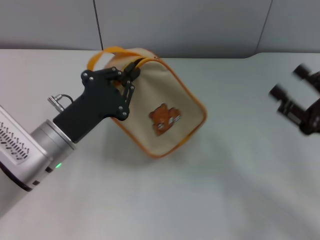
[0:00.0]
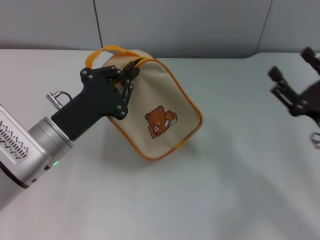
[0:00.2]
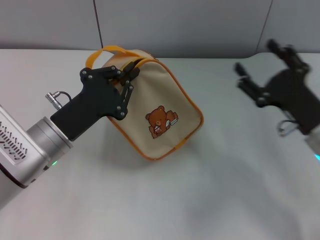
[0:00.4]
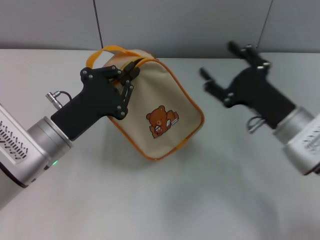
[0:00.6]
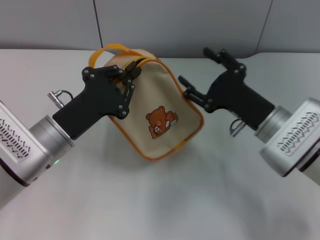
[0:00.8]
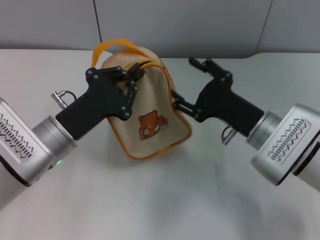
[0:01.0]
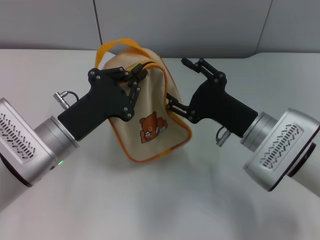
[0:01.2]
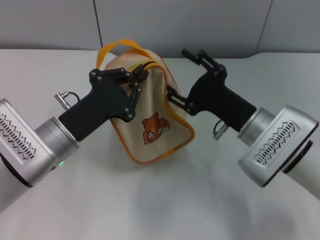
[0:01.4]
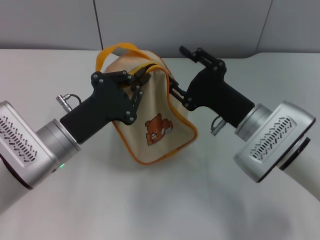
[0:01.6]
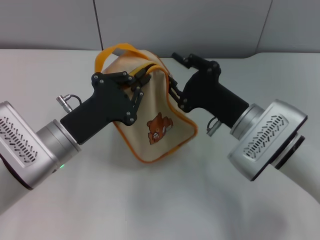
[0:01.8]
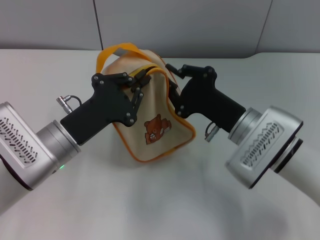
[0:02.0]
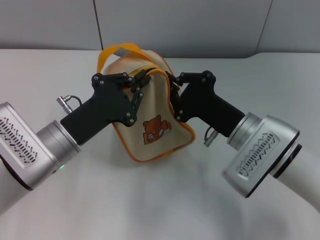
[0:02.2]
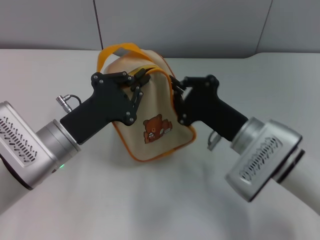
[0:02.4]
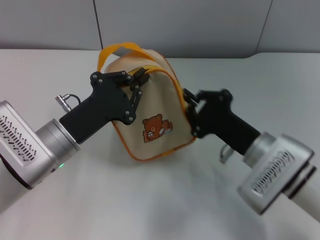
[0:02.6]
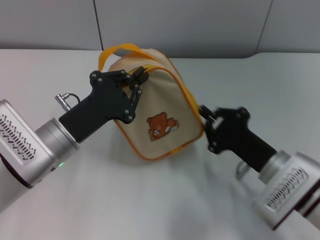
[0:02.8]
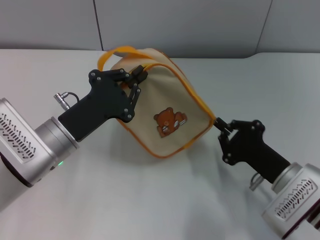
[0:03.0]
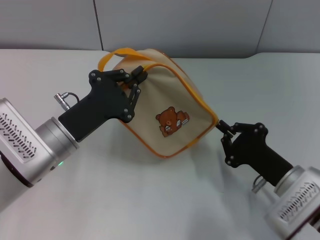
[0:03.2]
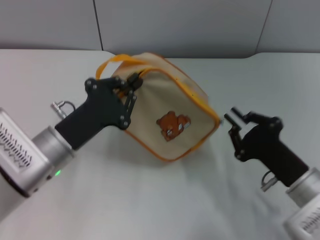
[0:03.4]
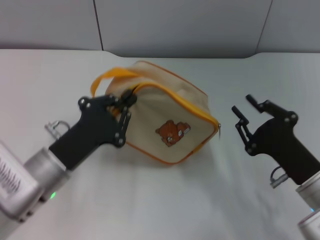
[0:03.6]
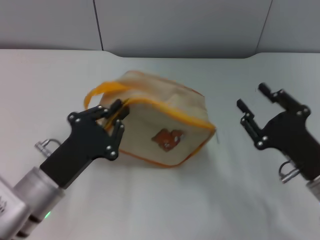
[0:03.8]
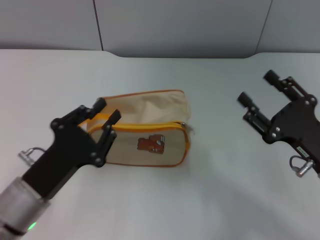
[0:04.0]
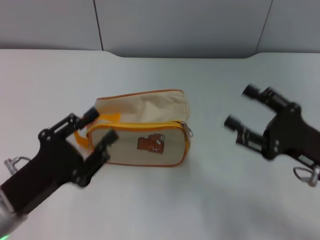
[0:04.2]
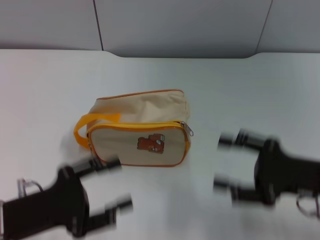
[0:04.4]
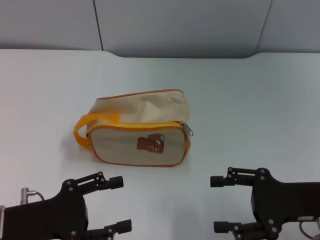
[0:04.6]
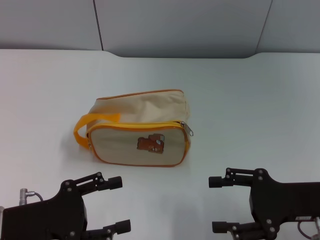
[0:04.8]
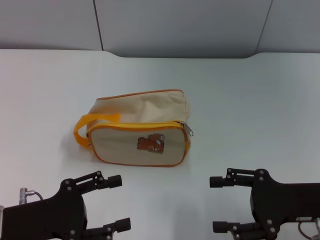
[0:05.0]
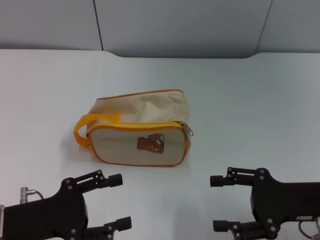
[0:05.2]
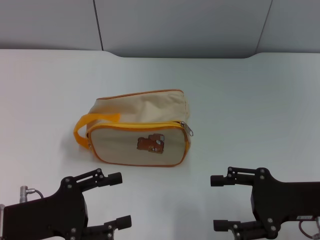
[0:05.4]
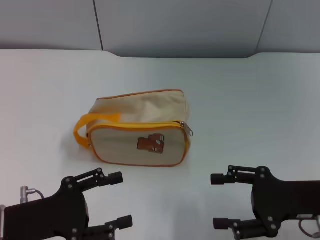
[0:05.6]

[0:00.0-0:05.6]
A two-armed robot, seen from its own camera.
Step, 0:00.2 to 0:03.4: Unzip the zipper of bag with right gripper.
Step, 0:03.6 to 0:04.0: Place the bag on the table with left gripper.
0:00.0 to 0:01.4: The right gripper shifts approximately 15 cm to the left and forward.
0:01.4 to 0:02.8: The right gripper changes place by approximately 5 cm, and closes up.
0:02.8 to 0:04.2: The left gripper travels backward and to the left by some 10 cm, while the right gripper shifts roughly 10 cm to the right and upward, and opens its fingers.
0:04.2 to 0:05.6: The left gripper opens.

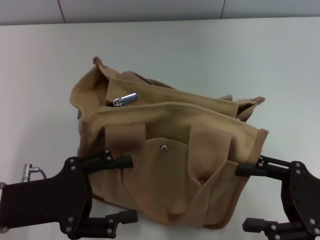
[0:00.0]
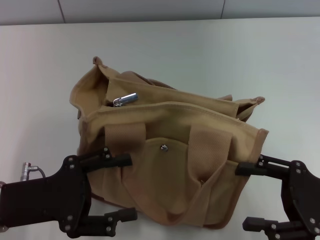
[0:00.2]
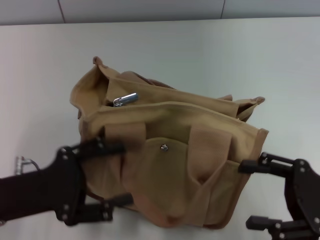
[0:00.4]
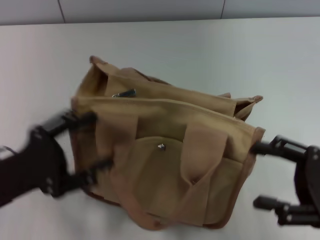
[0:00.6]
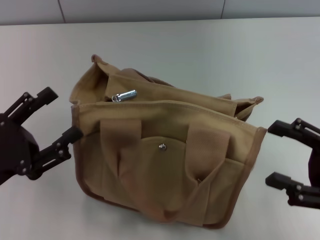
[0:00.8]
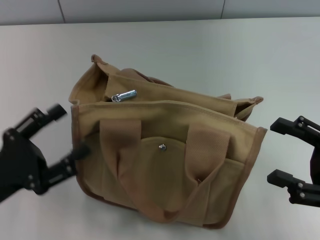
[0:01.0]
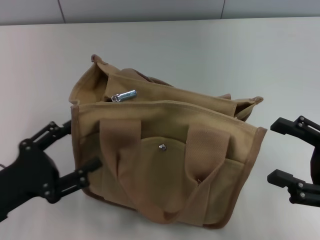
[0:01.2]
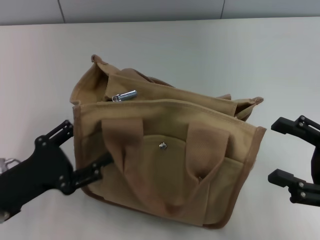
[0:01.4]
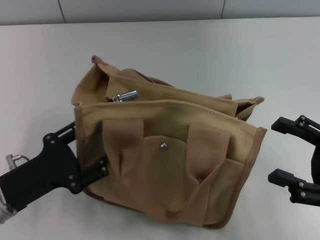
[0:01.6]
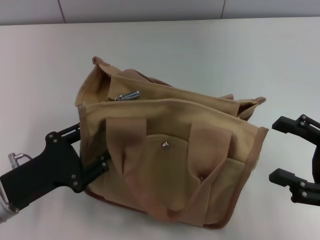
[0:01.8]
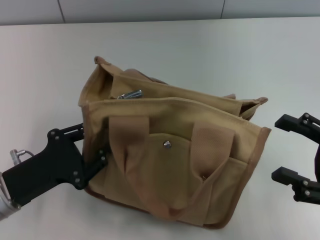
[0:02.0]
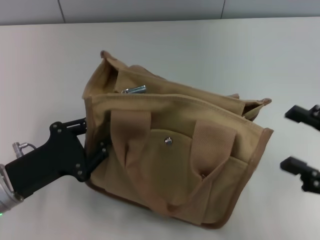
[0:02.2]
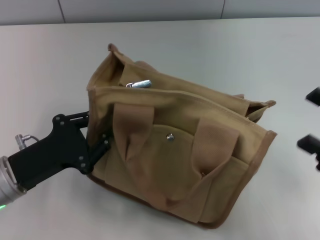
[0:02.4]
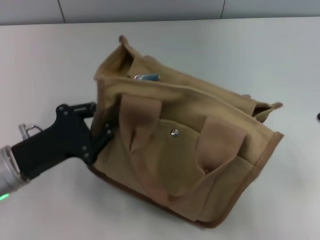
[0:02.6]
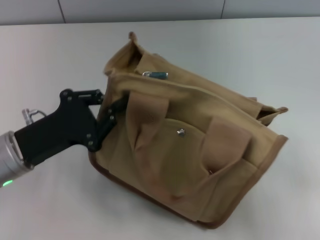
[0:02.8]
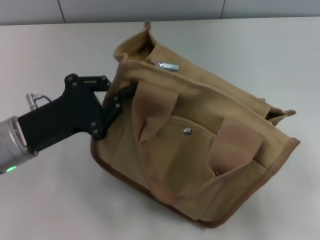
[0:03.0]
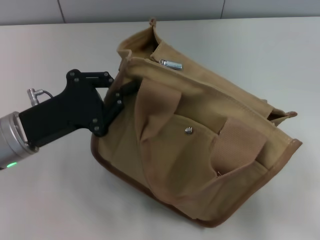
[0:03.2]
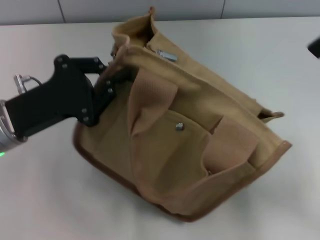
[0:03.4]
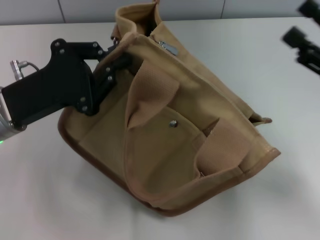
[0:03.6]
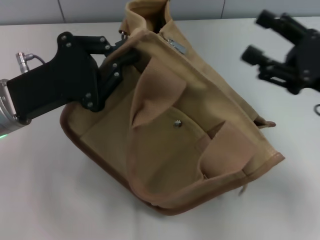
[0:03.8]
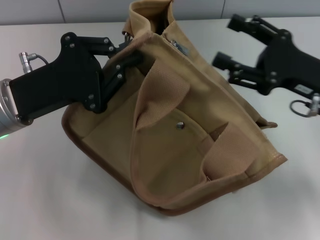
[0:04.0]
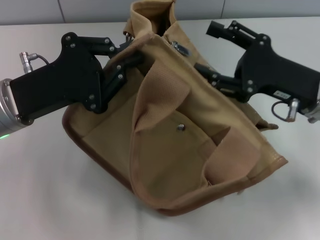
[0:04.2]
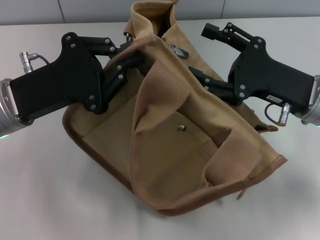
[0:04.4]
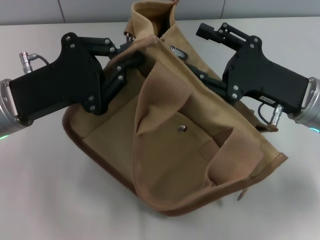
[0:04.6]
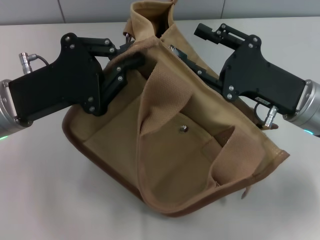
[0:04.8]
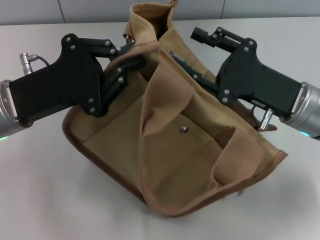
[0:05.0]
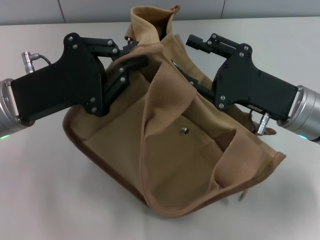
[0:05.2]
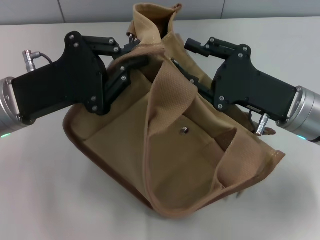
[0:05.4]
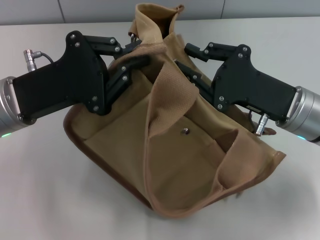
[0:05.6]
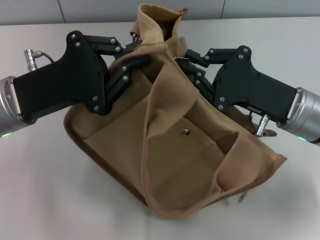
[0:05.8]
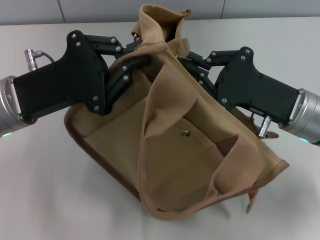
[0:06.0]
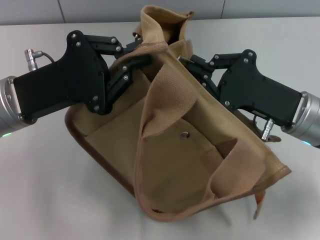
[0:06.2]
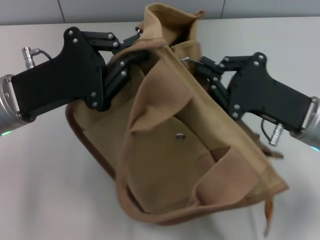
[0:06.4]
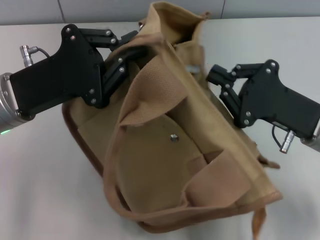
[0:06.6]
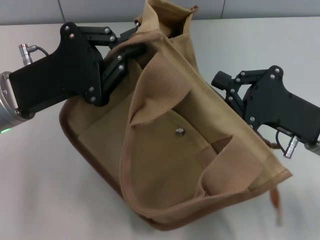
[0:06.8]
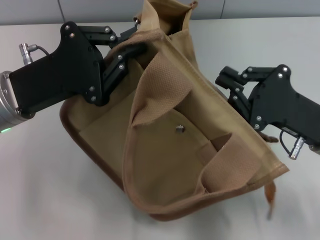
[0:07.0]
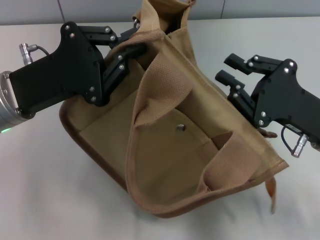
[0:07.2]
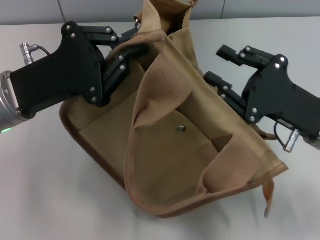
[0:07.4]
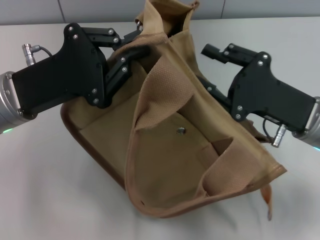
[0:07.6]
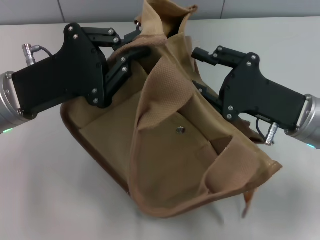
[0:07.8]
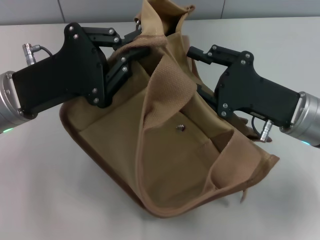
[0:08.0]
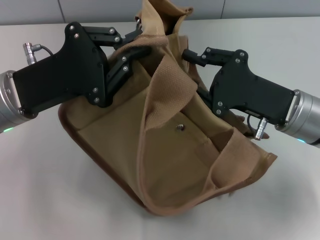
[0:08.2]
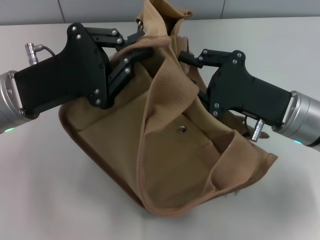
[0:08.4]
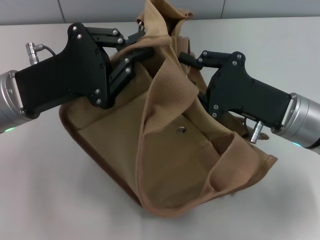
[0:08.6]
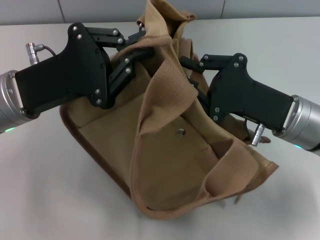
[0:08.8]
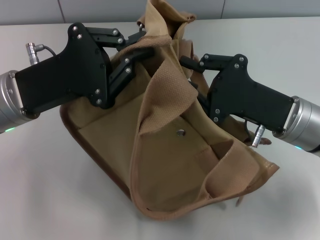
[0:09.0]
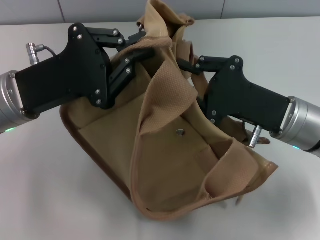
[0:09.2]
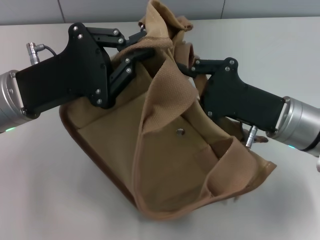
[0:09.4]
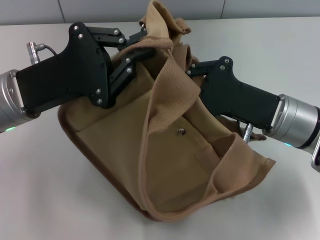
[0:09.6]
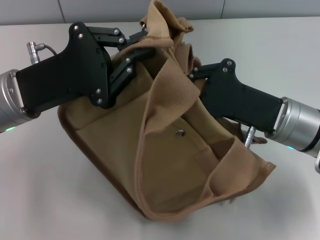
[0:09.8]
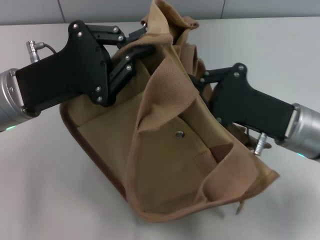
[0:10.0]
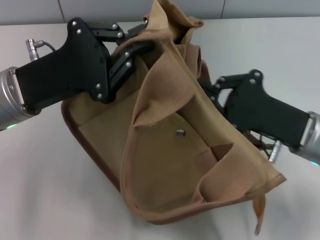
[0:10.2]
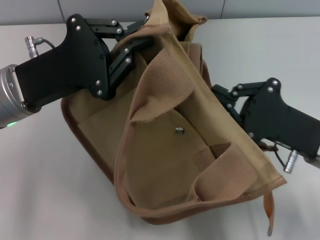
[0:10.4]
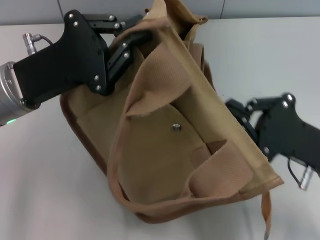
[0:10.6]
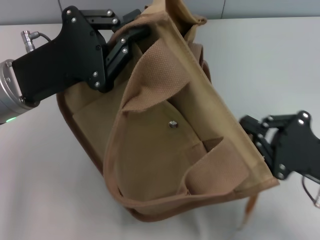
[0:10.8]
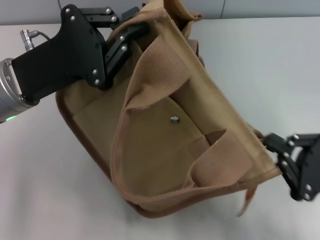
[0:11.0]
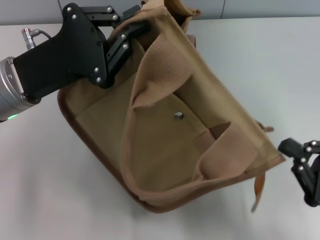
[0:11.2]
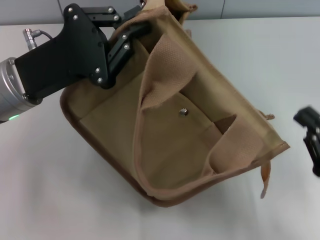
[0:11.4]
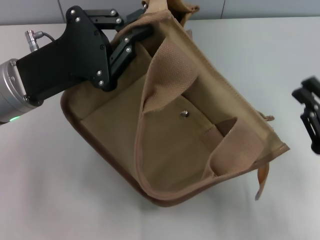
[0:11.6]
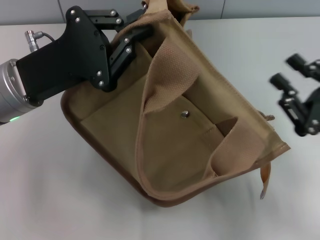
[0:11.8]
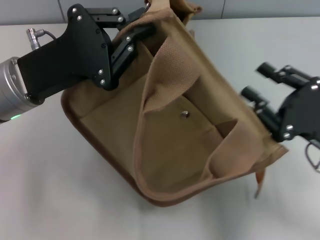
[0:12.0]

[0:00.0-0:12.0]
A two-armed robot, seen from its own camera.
0:01.6 to 0:03.0: The left gripper goes some 5 cm forward, and closes up.
0:03.0 to 0:04.4: The right gripper moves to the left and forward, roughly 15 cm. The left gripper ends up approximately 5 cm from where it was.
0:04.4 to 0:06.0: The right gripper closes up.
0:06.0 to 0:07.6: The right gripper opens.
0:07.6 to 0:09.0: The grippers stay close to where they were, moving slightly.
0:09.0 to 0:10.4: The right gripper ends up some 5 cm from where it was.
0:10.4 to 0:12.0: The right gripper goes backward and returns, about 10 cm each way, and opens up.

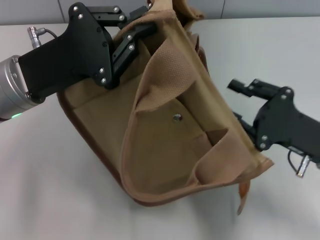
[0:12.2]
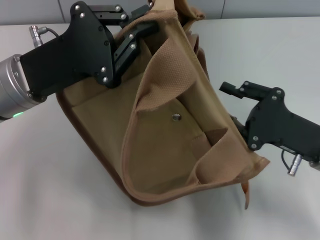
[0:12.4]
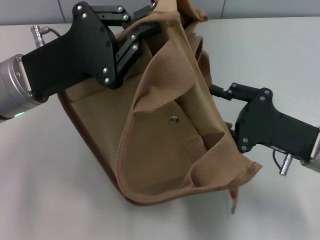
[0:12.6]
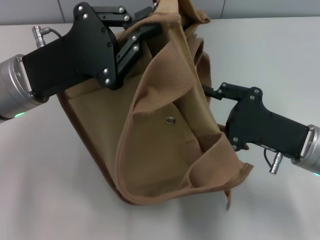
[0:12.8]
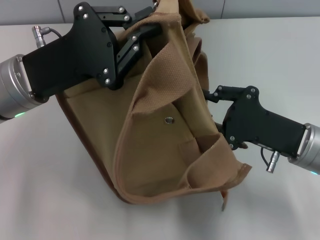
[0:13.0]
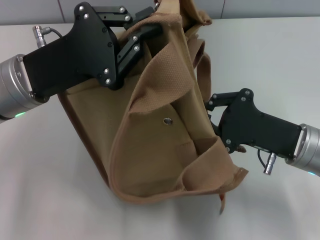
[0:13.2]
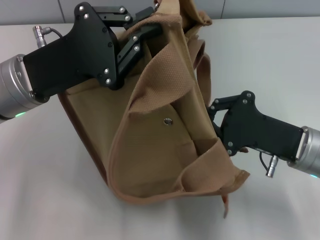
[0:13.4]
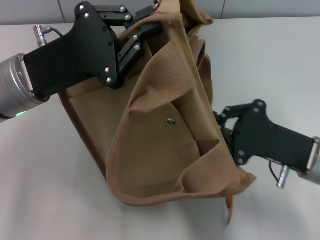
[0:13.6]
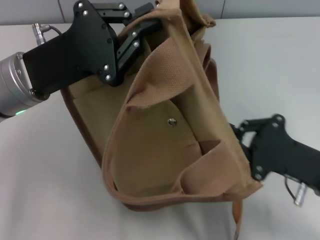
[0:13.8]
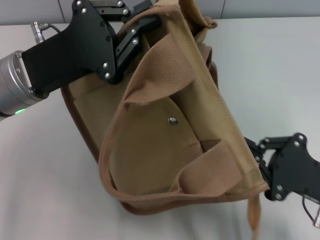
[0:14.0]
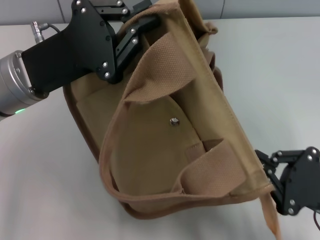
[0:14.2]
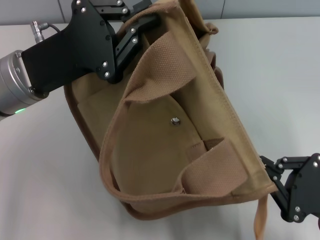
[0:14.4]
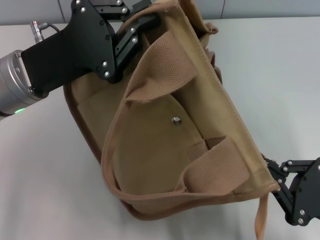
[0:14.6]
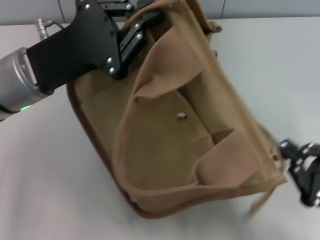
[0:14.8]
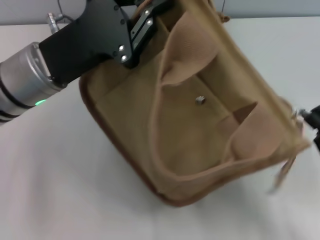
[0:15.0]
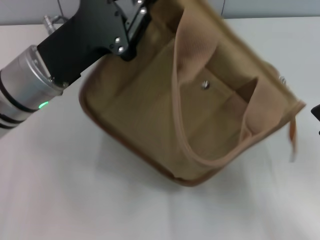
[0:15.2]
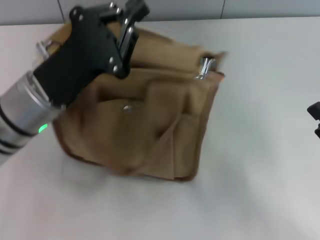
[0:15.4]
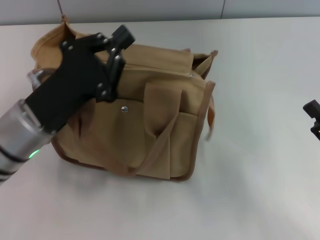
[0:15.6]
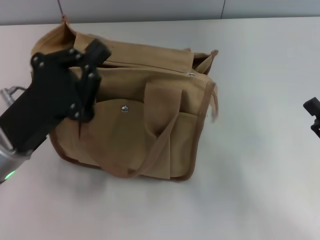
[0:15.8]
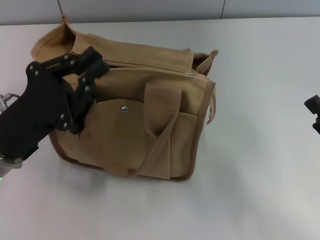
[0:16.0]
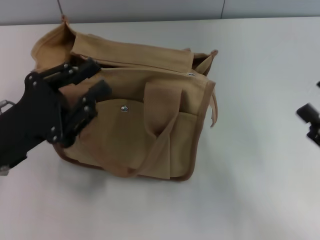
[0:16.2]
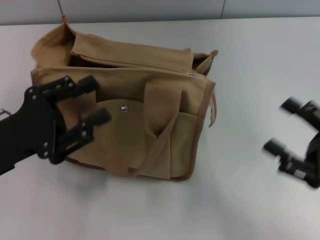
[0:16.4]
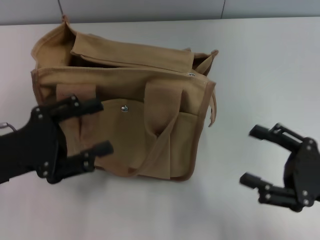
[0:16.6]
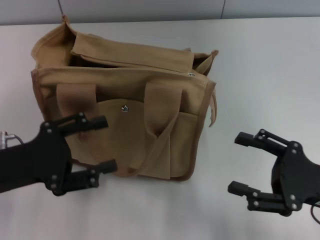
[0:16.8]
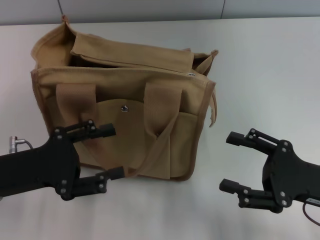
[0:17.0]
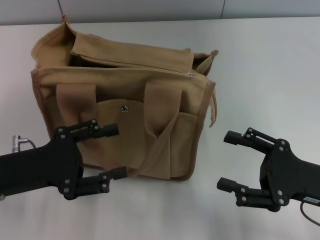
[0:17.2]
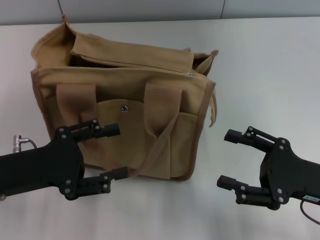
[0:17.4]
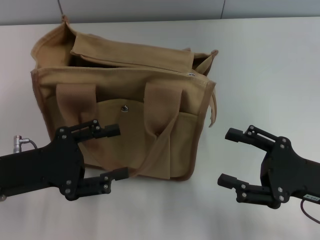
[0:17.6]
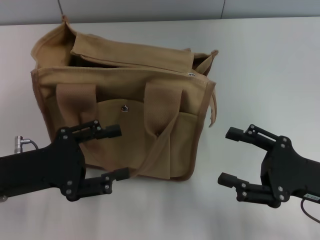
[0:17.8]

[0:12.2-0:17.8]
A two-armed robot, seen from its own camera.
Step, 0:12.2 to 0:15.0: Pull open the zipper with your right hand.
Step, 0:15.2 to 0:15.6: Grab the bag with your left hand.
0:12.2 to 0:13.6: The right gripper closes.
0:13.6 to 0:15.0: The right gripper travels to the right and backward by some 10 cm.
0:15.0 to 0:16.4: The right gripper opens up, while the left gripper moves backward and to the left, approximately 10 cm.
0:16.4 to 0:17.8: The left gripper opens up.
